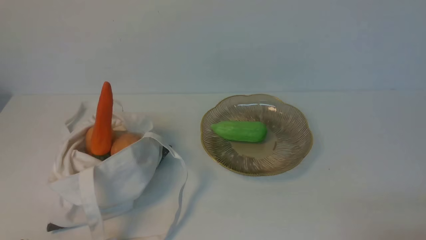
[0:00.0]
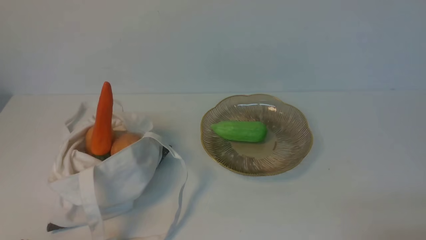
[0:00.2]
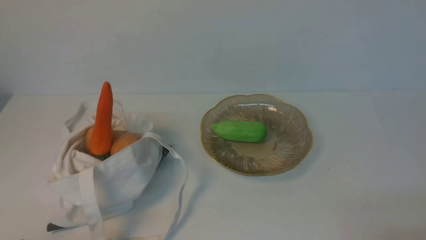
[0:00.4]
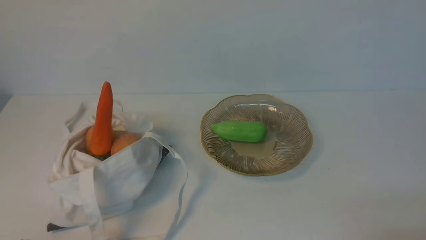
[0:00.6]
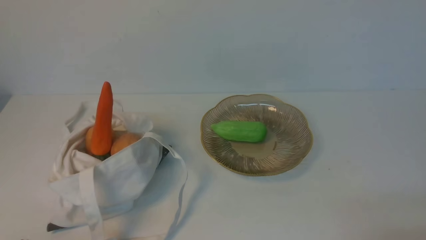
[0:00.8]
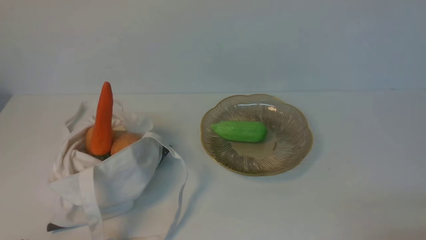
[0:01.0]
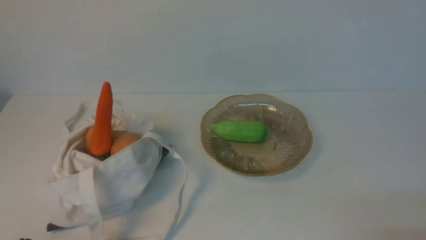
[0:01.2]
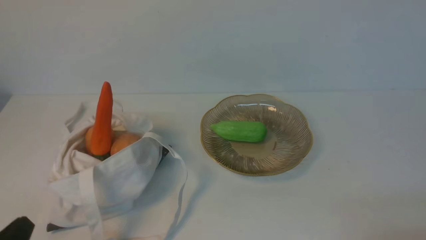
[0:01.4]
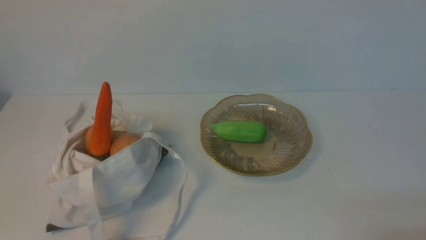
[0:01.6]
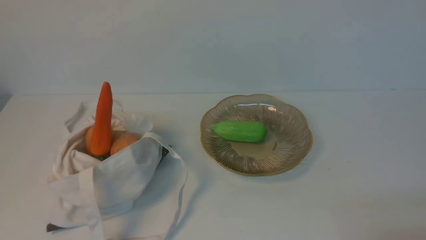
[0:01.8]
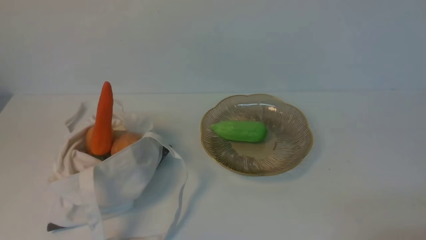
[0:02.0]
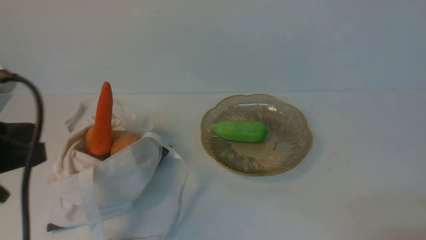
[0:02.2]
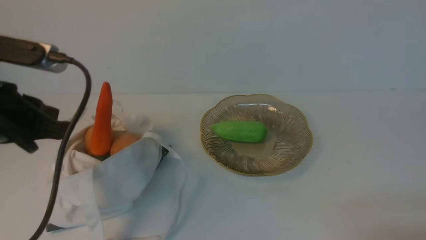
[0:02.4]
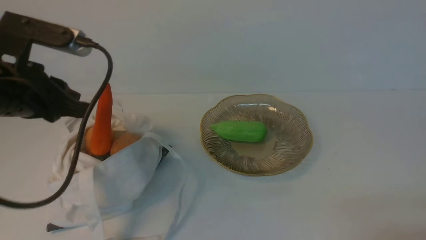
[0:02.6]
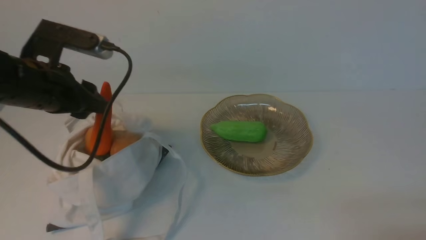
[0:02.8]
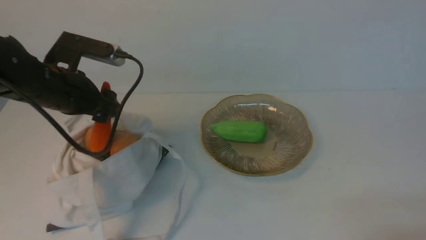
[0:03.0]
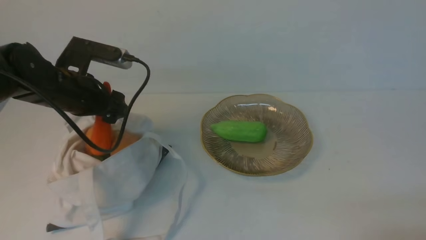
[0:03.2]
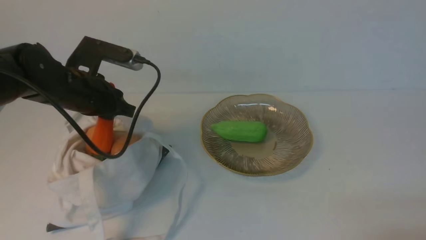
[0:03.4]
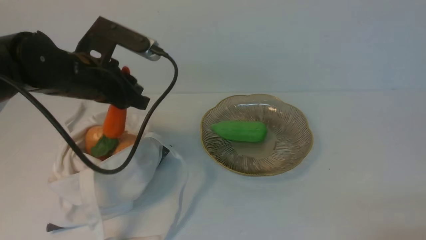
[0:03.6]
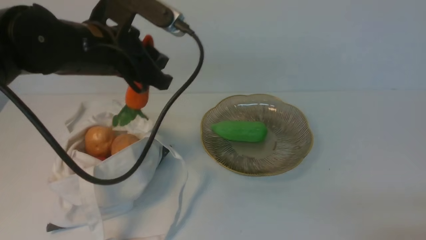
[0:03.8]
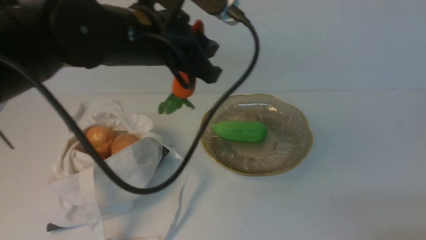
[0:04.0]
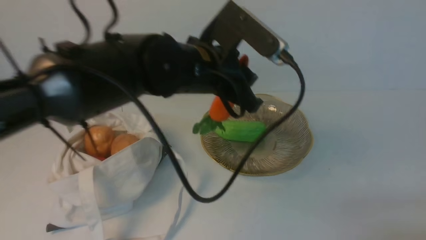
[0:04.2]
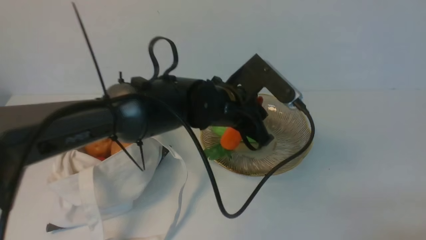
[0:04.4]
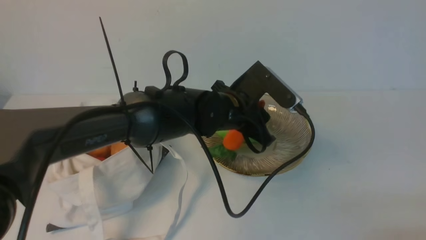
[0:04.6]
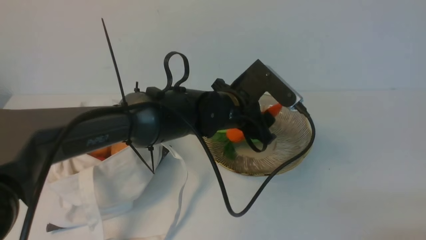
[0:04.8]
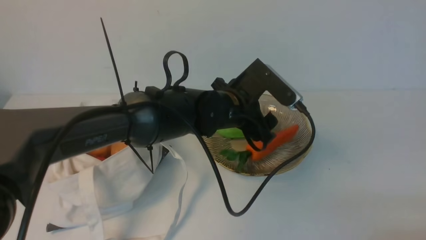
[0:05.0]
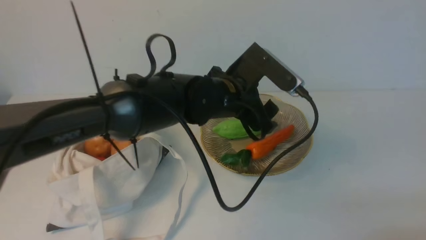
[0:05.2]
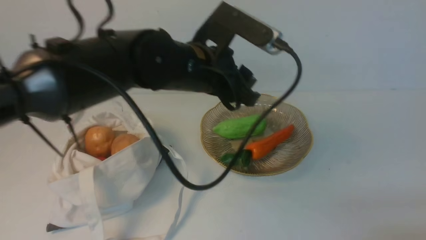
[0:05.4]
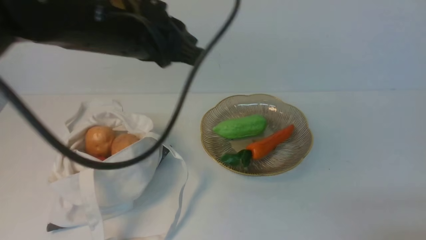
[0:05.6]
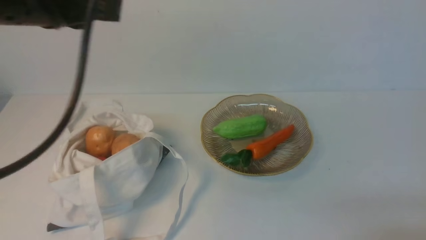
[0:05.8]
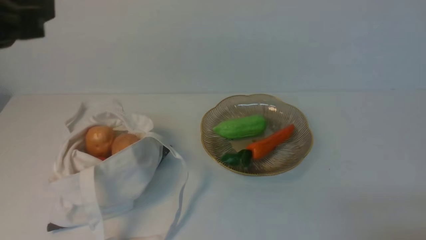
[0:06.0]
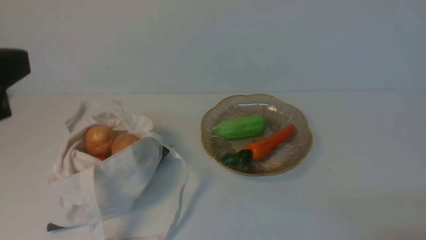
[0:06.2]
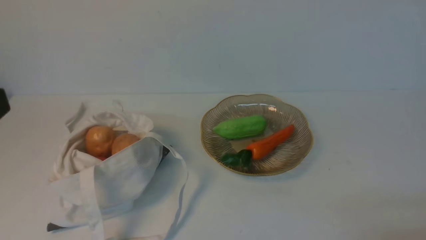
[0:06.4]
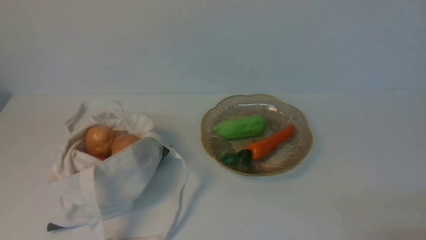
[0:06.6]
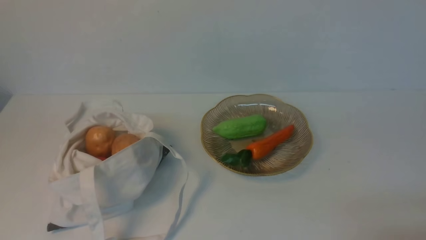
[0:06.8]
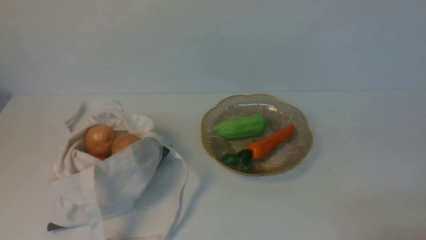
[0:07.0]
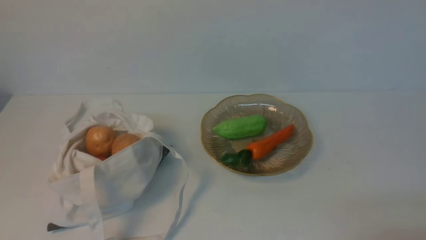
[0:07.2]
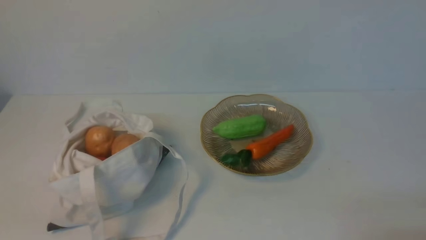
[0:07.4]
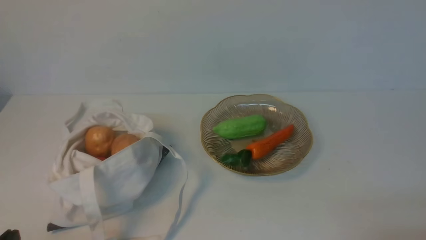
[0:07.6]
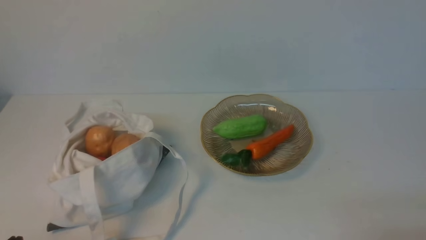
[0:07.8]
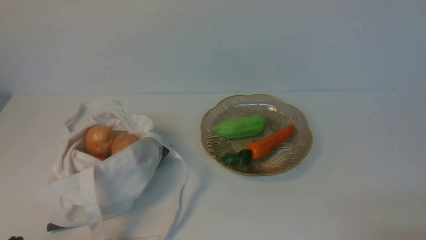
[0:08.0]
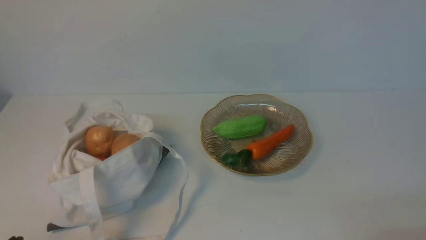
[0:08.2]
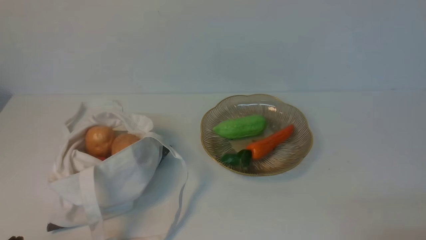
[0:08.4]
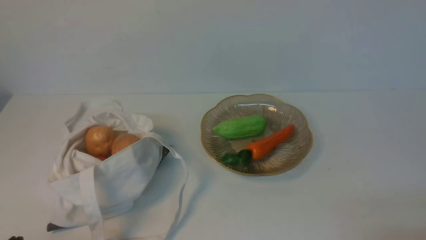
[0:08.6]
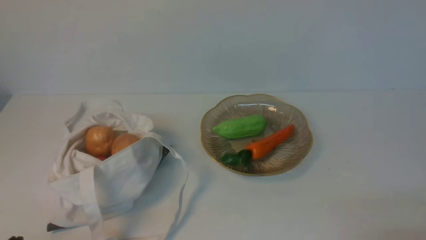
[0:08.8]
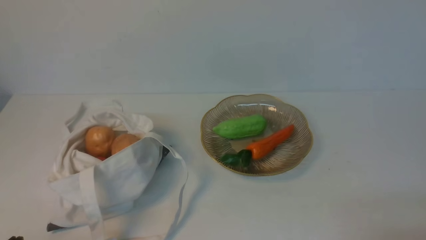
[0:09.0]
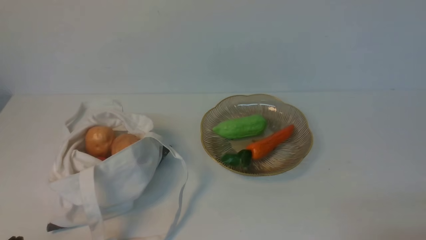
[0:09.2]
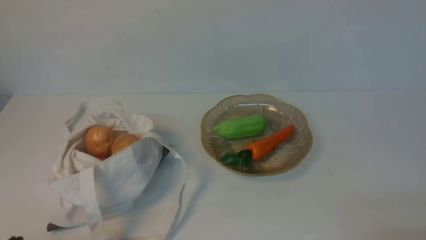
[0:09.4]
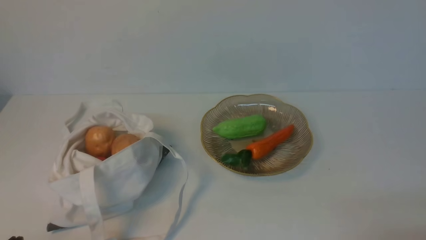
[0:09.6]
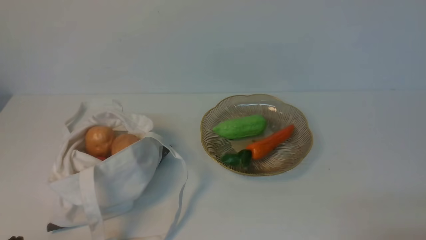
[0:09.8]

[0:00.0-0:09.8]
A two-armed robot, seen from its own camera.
Task of the whole recording: take vegetables from cloth bag on white table place on plate.
Step, 0:00.0 to 0:03.2: Grasp the carrot with left gripper.
Step, 0:03.4 to 0:05.0: Place the carrot on the plate with left gripper.
0:01.4 to 0:02.8: The left gripper shifts roughly 25 cm forward and upward, and opens its fingers.
0:02.8 to 0:04.2: The left gripper goes approximately 20 cm to the right, and opens and closes again.
0:04.2 to 0:05.6: The left gripper shifts about 5 cm upward, and opens, then closes again.
0:05.6 to 0:07.0: The left gripper is displaced backward and to the left by roughly 30 cm.
0:08.4 to 0:09.8: The two grippers keep their place.
